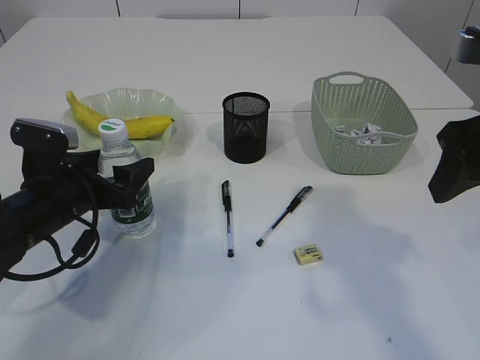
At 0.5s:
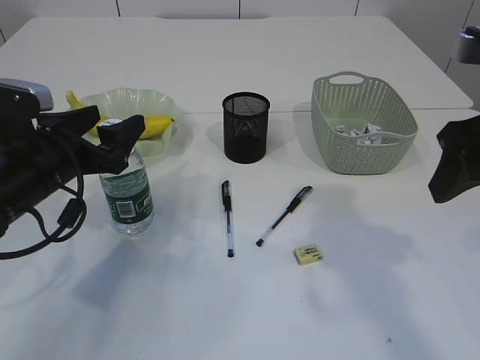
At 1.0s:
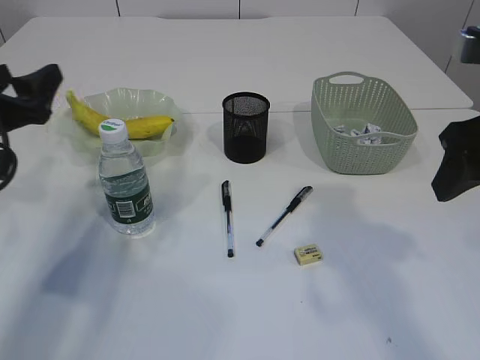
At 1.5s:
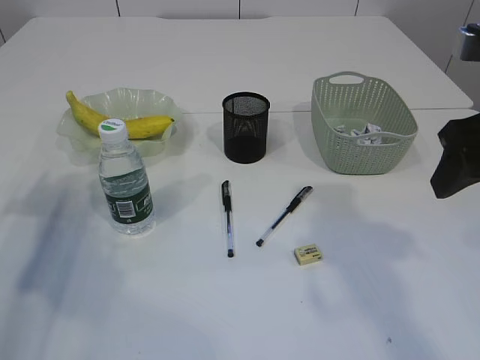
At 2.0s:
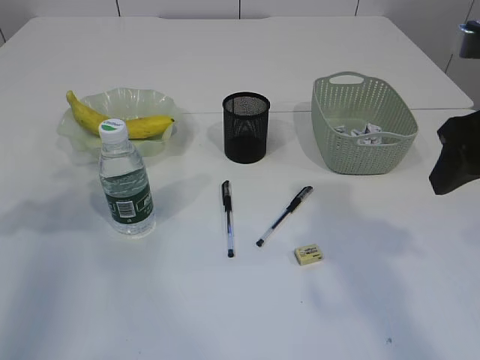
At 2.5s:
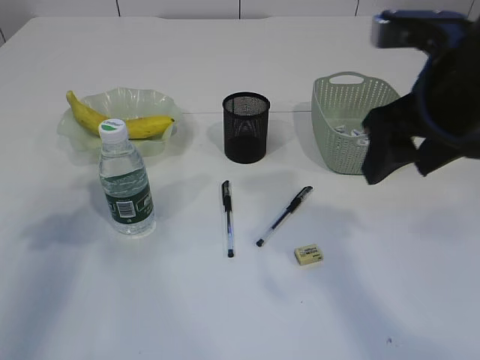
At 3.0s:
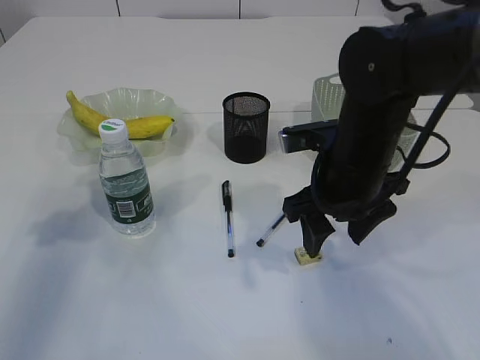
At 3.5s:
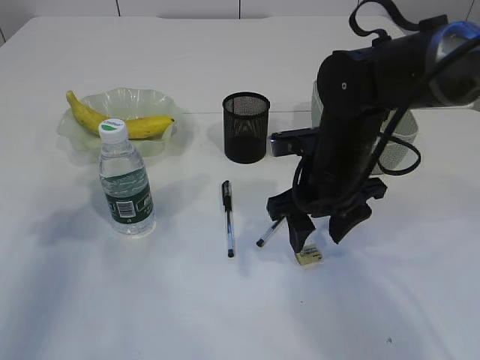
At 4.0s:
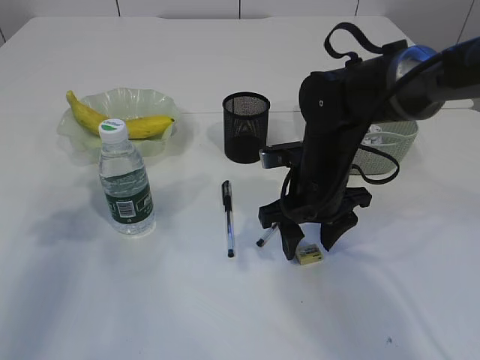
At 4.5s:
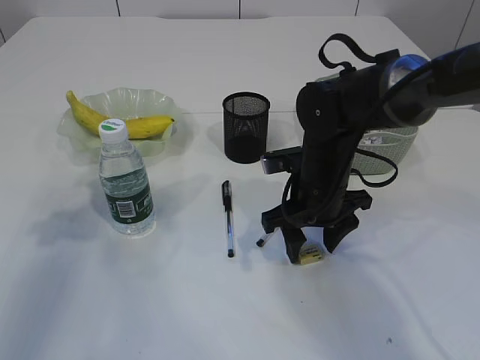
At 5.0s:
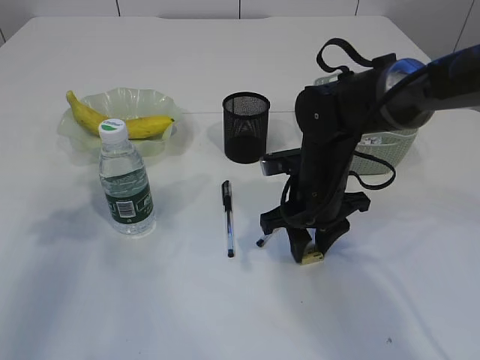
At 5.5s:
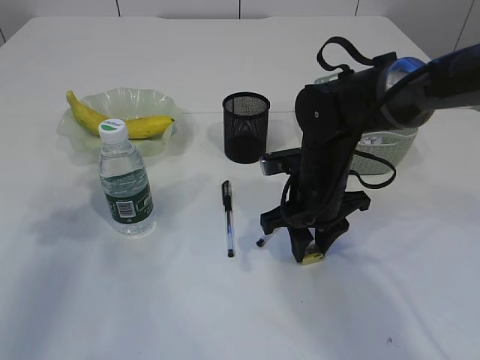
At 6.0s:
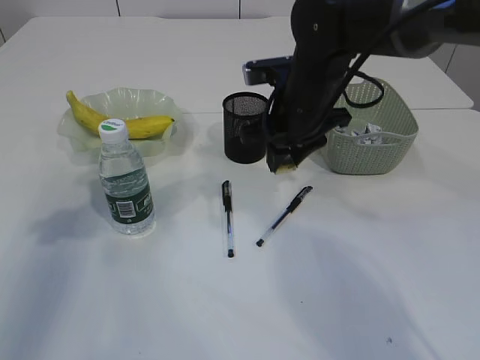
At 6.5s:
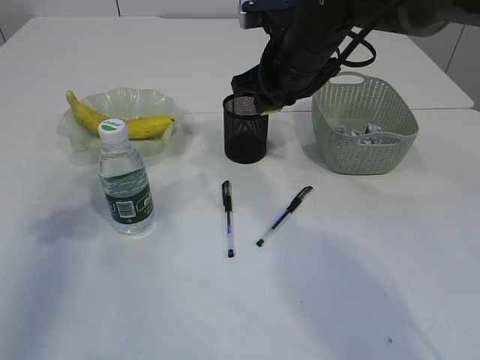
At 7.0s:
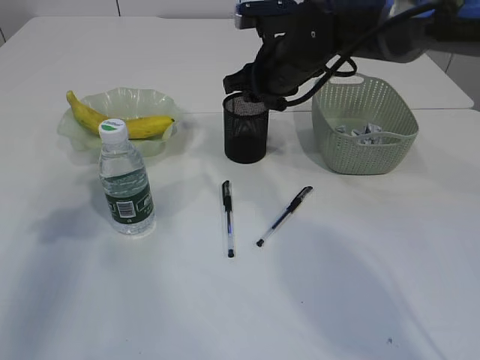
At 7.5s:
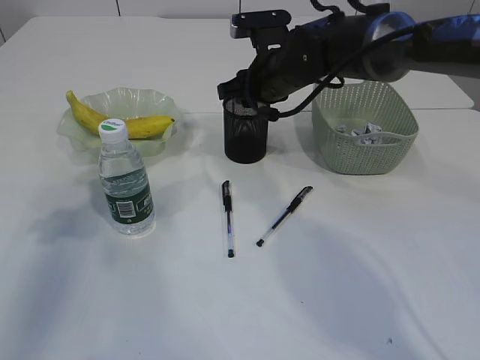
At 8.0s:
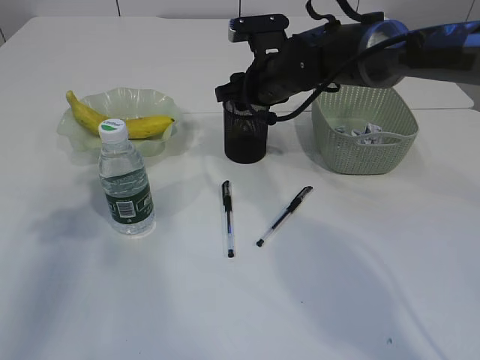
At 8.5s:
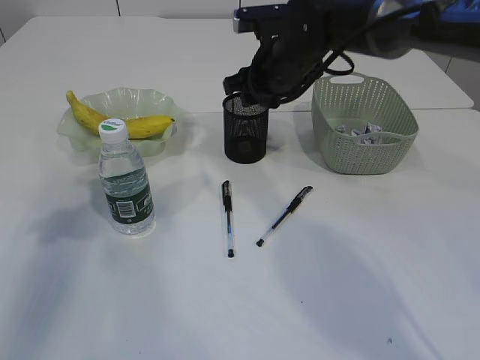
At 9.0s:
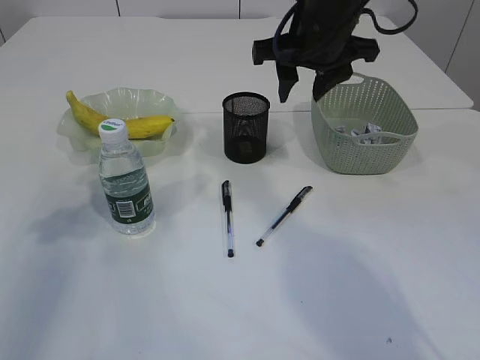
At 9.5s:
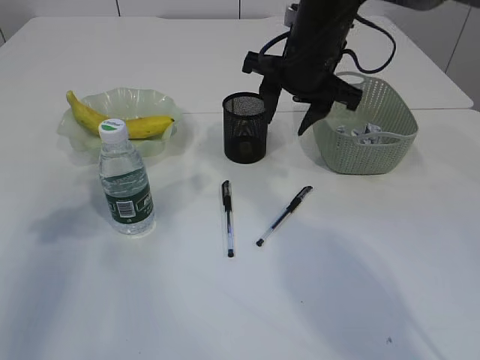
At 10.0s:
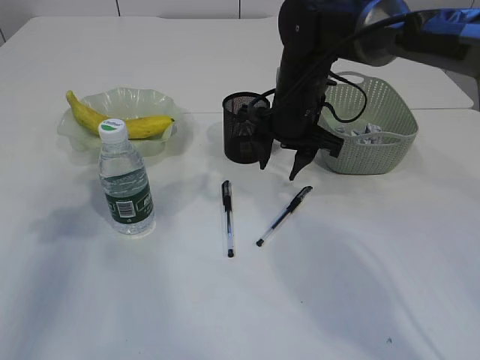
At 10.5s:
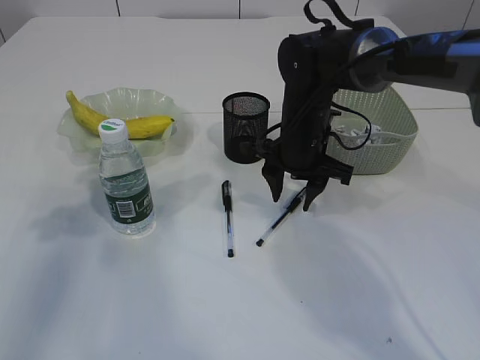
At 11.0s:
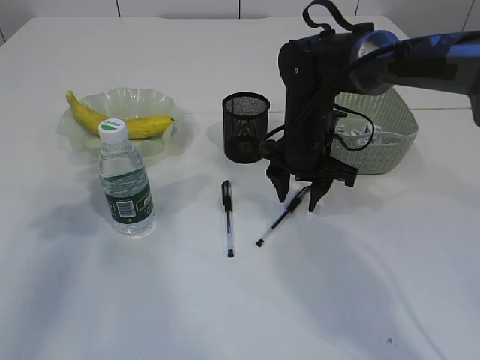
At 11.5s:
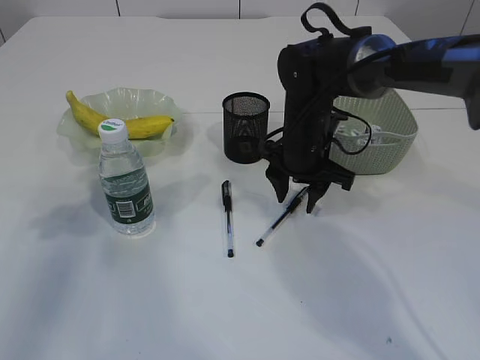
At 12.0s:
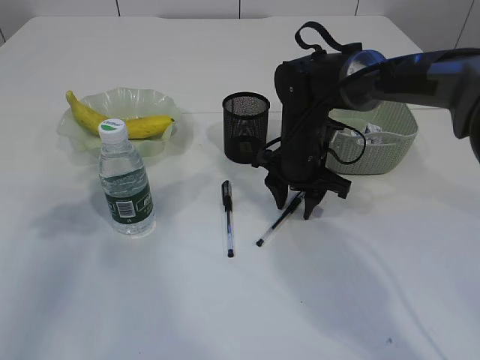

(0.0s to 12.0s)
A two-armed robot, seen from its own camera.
Step, 1.0s - 5.5s: Pick up the eraser.
Step, 6.0s - 8.5s: Place the eraser into the pen holder.
0.0s - 2.0s: The left gripper moves to the left and upward, about 20 cm.
2.0s - 4.0s: The right gripper heads downward, to the left and forward, covering about 25 cm.
4.0s - 6.0s: The right gripper heads upward, covering about 5 cm, and closes up.
6.0s - 8.0s: The right gripper is displaced forward by approximately 10 cm.
8.0s - 10.0s: The right gripper moves some 10 cm upward and comes back.
10.0s - 12.0s: The right gripper is displaced downward by about 5 cm.

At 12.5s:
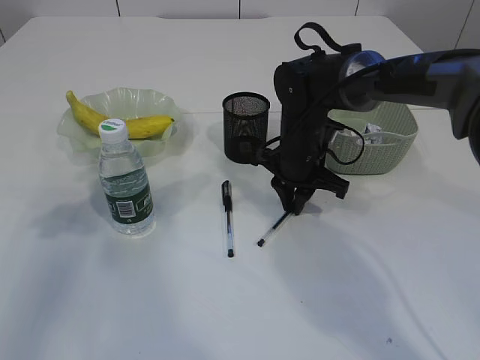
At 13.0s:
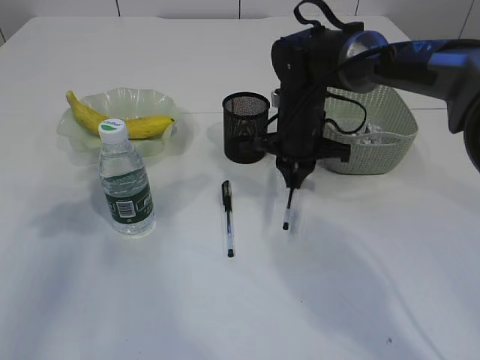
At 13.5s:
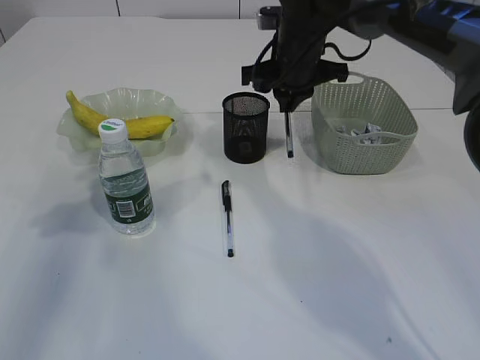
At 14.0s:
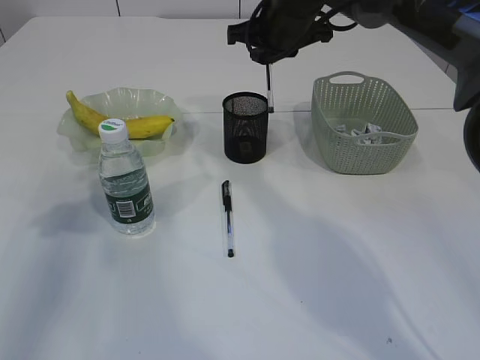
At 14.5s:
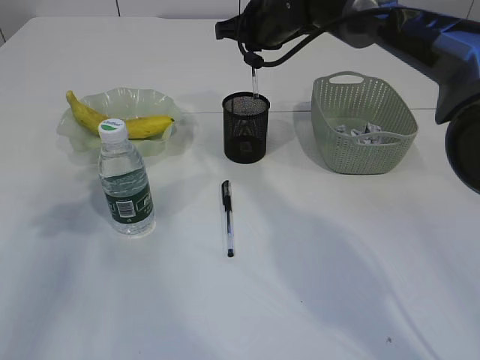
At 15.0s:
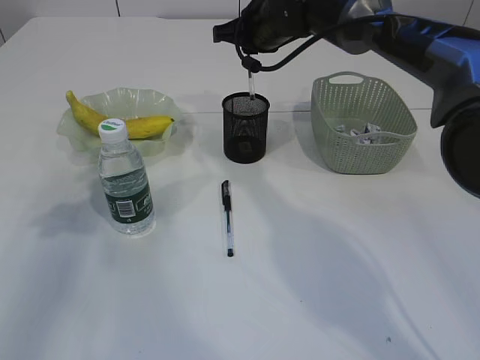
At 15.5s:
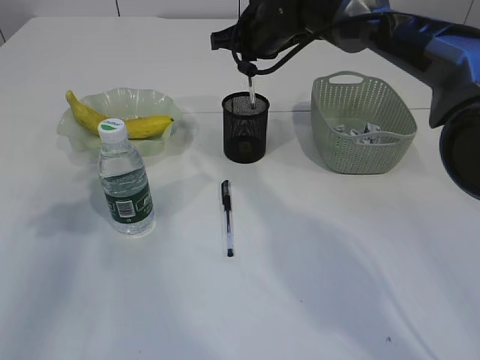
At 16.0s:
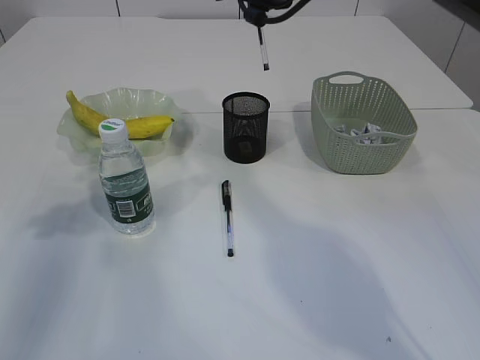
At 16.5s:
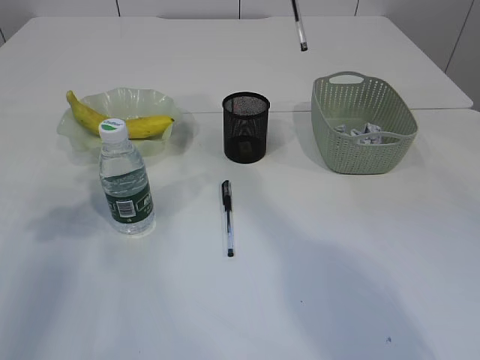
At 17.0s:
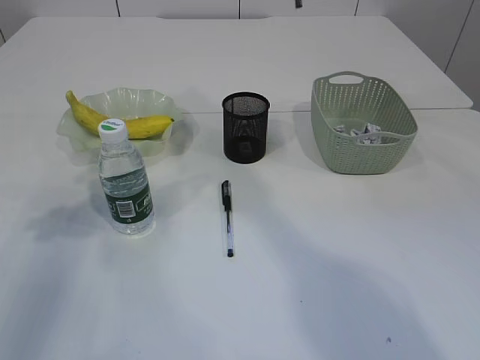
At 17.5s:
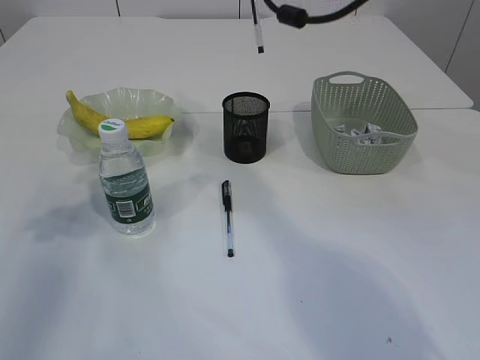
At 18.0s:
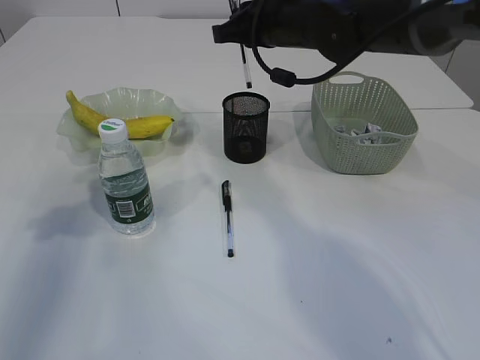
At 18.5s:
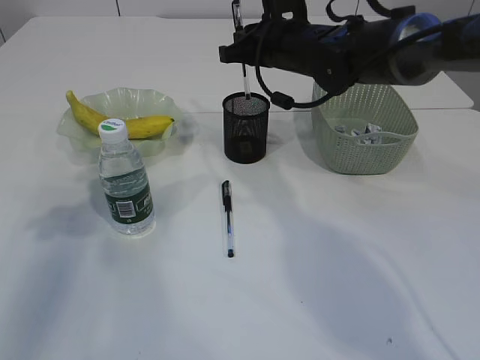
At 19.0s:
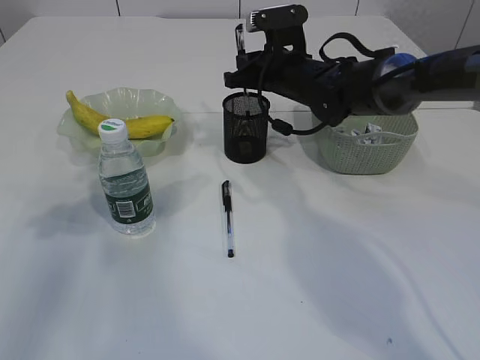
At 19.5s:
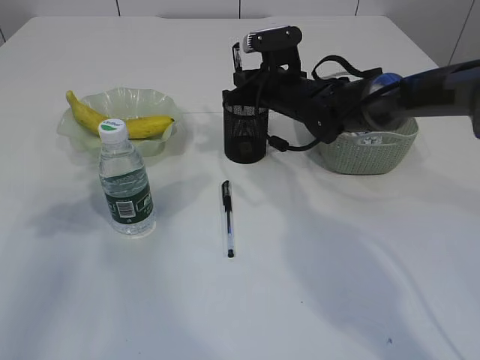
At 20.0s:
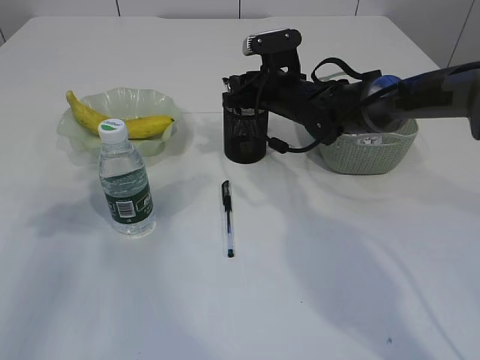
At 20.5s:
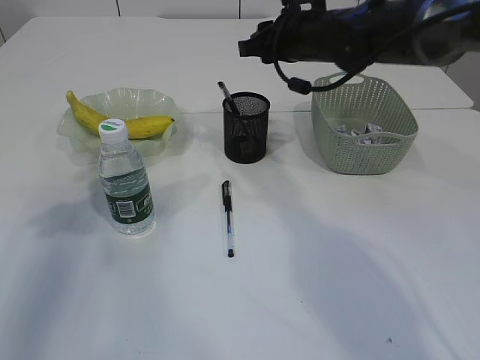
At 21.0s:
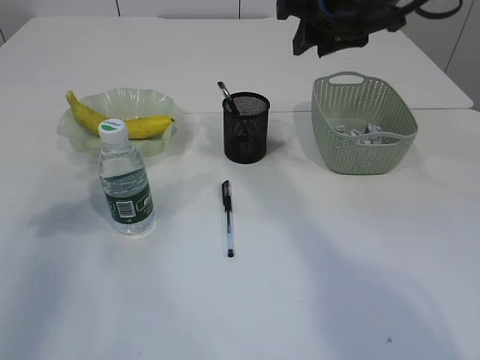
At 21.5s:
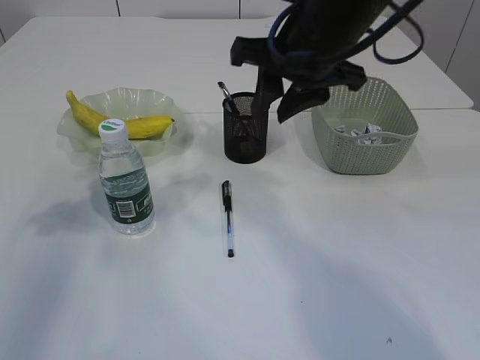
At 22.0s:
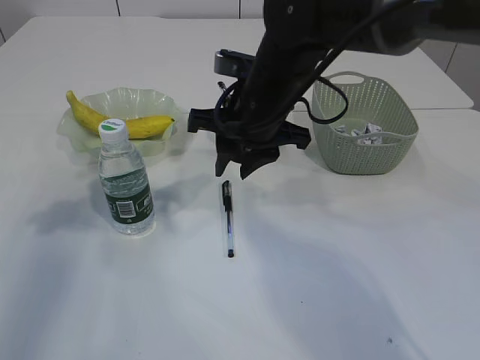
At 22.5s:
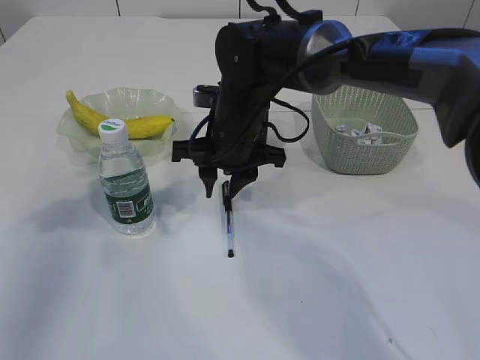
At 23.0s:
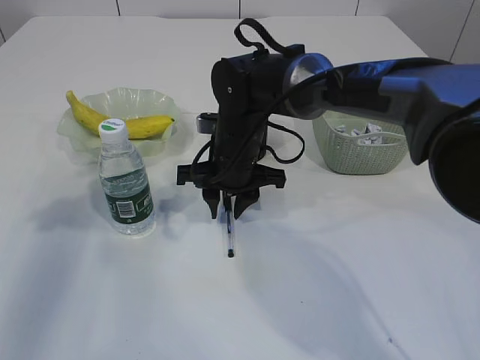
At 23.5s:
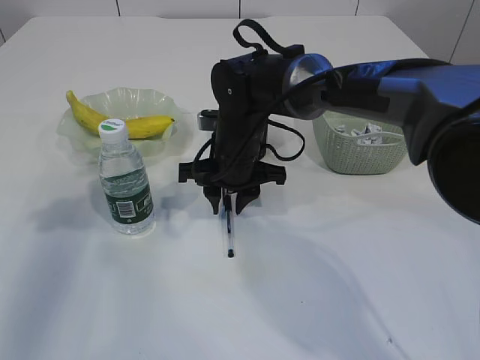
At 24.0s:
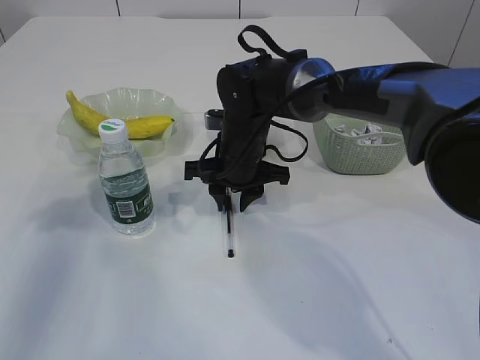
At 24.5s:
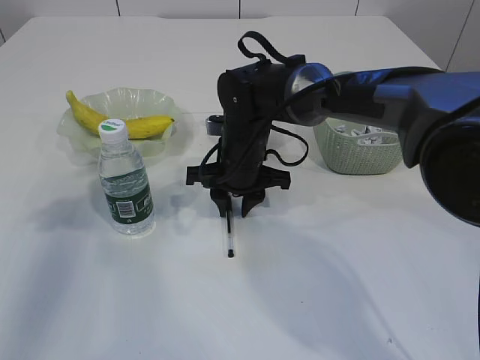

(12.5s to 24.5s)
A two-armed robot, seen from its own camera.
Step, 13.5s - 20.0s: Place the pen into the pen holder.
12.5s - 14.5s: The right gripper heads upward and forward, covering approximately 15 cm.
14.5s - 16.5s: The right gripper shifts roughly 15 cm upward and backward.
16.5s - 18.5s: The right gripper travels downward by roughly 15 cm.
18.5s - 20.5s: The right gripper goes downward and returns, about 10 cm each way, and opens its fingers.
20.5s - 22.5s: The right gripper travels to the left, backward and downward by roughly 15 cm.
22.5s - 24.5s: The right gripper is displaced downward by roughly 5 cm.

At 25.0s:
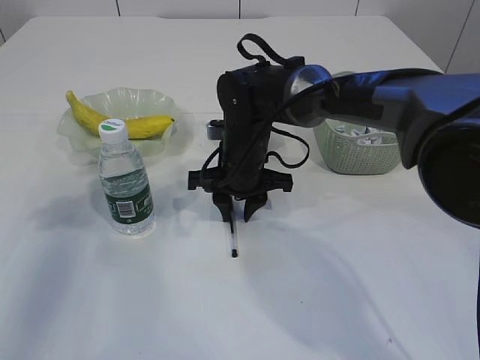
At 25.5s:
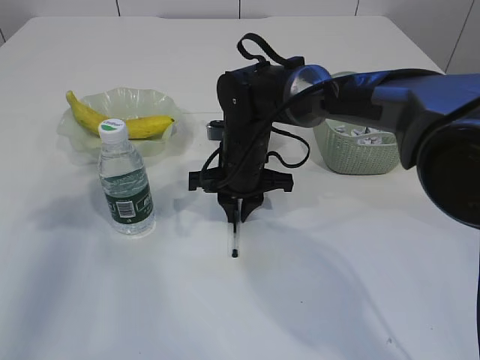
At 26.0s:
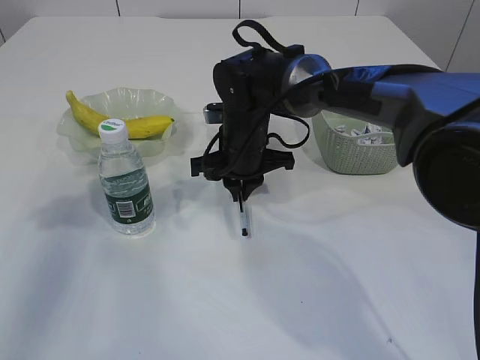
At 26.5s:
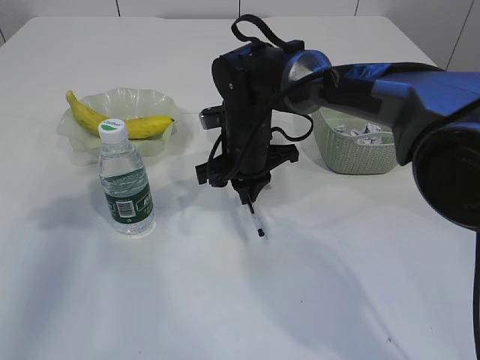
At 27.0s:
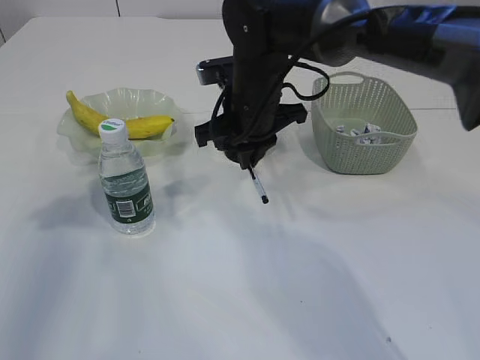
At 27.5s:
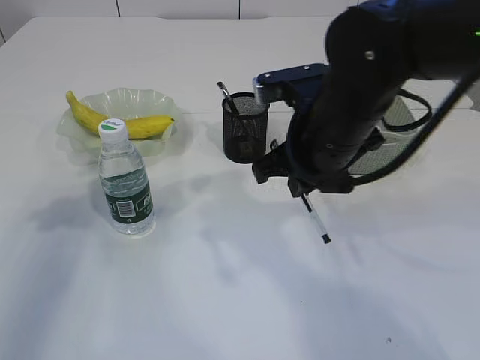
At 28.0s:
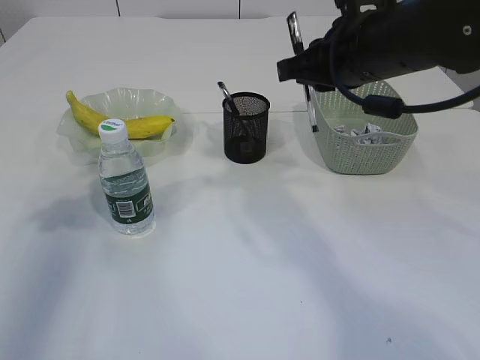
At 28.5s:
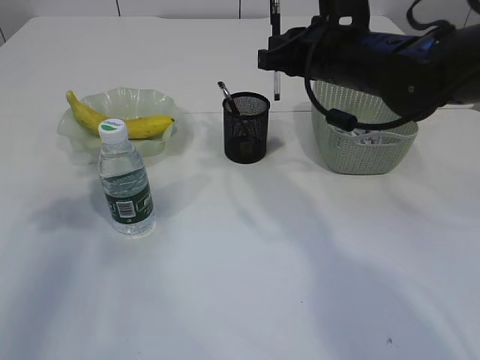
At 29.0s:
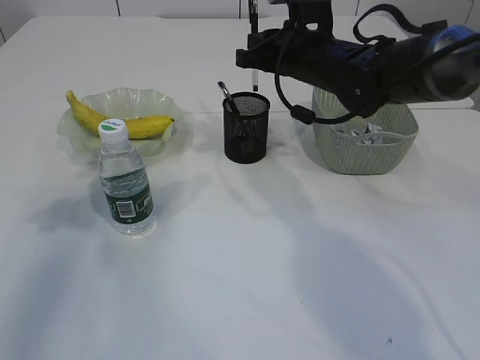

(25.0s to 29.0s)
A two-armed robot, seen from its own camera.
25.0s - 27.0s: The right gripper shifts approximately 10 cm upward, and closes its fingers.
27.0s - 29.0s: The right gripper shifts roughly 10 cm to the right, and moves some 10 cm backward and comes back.
